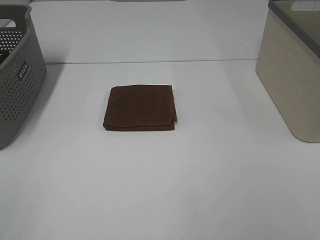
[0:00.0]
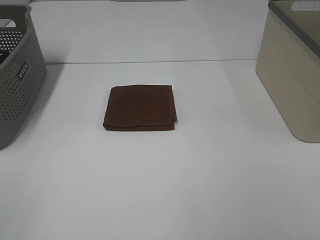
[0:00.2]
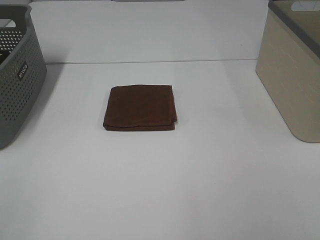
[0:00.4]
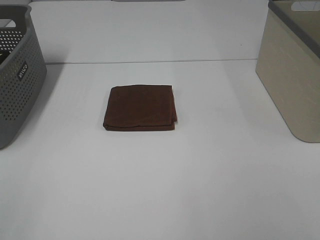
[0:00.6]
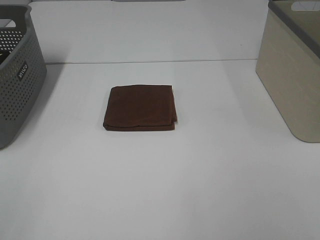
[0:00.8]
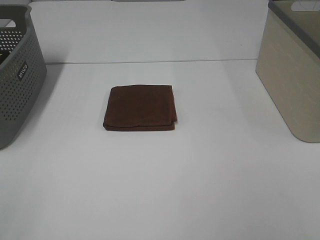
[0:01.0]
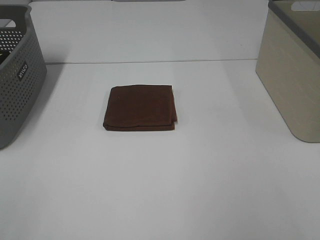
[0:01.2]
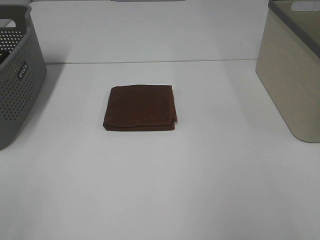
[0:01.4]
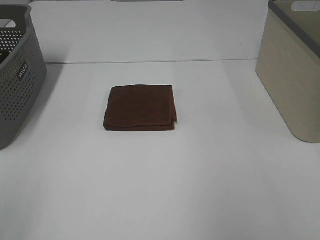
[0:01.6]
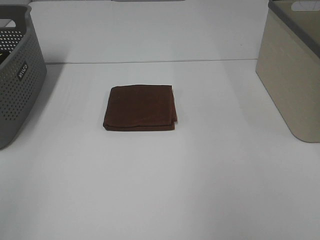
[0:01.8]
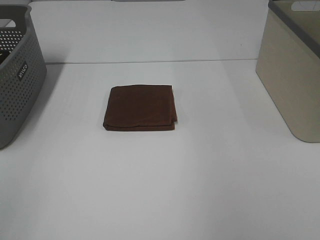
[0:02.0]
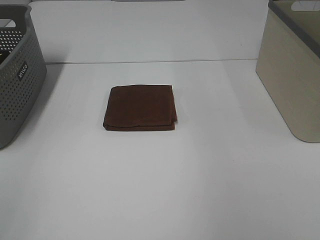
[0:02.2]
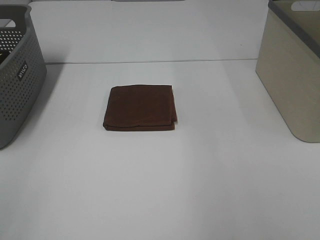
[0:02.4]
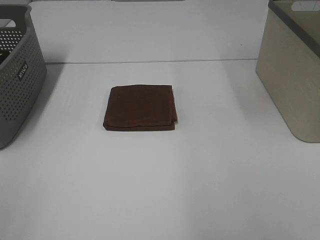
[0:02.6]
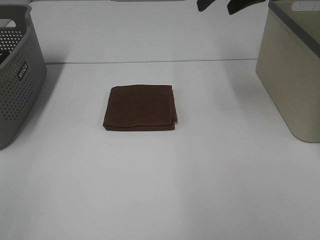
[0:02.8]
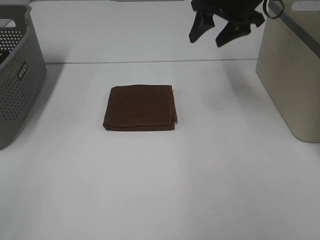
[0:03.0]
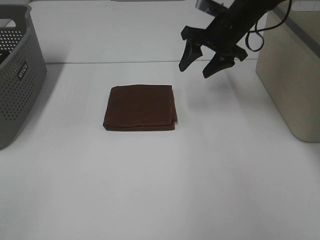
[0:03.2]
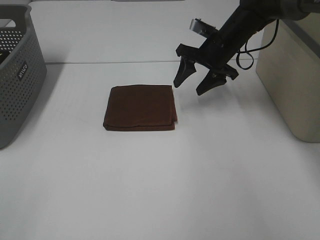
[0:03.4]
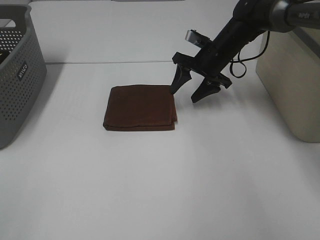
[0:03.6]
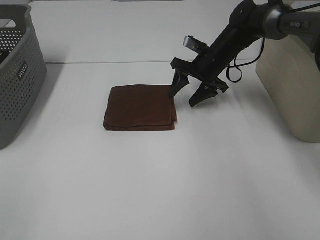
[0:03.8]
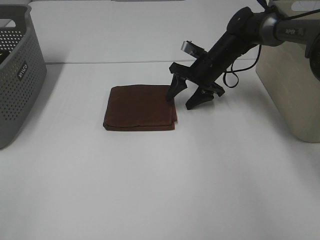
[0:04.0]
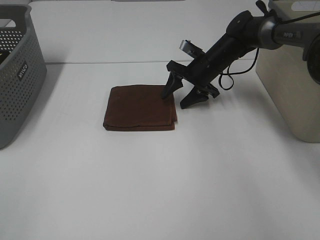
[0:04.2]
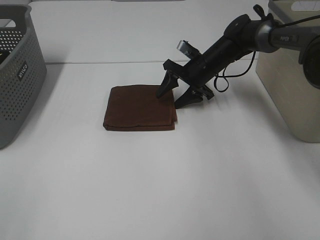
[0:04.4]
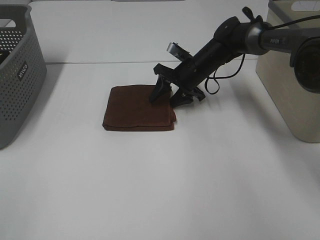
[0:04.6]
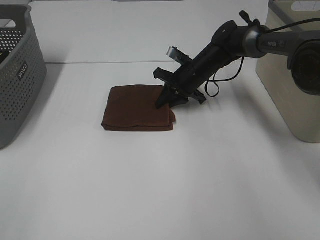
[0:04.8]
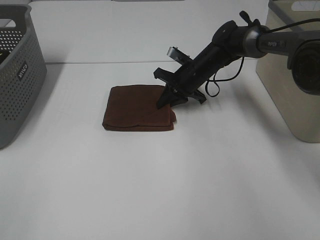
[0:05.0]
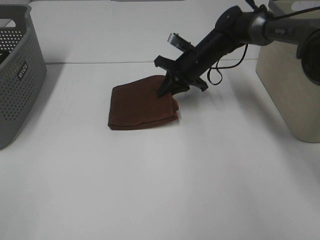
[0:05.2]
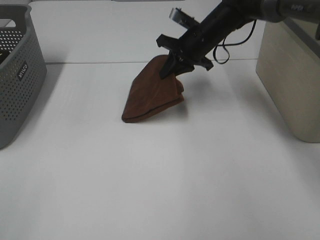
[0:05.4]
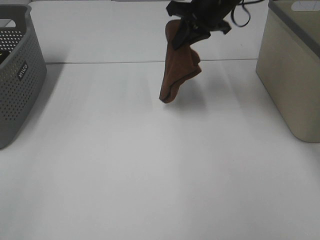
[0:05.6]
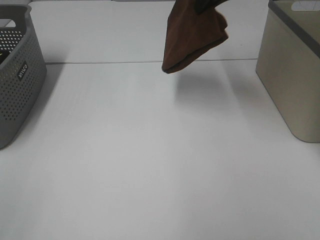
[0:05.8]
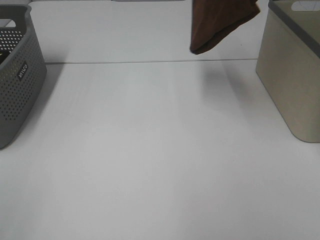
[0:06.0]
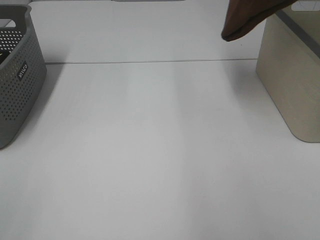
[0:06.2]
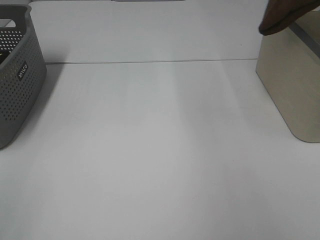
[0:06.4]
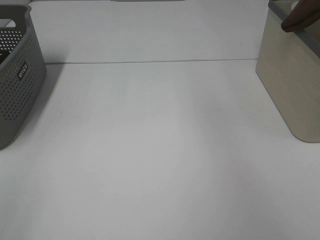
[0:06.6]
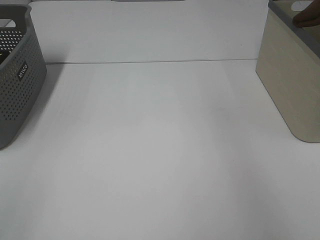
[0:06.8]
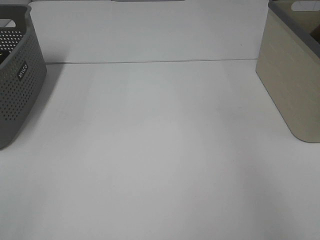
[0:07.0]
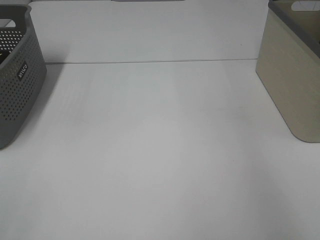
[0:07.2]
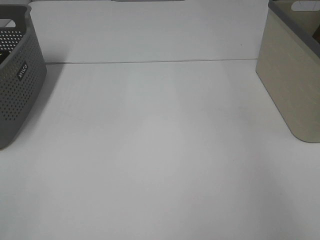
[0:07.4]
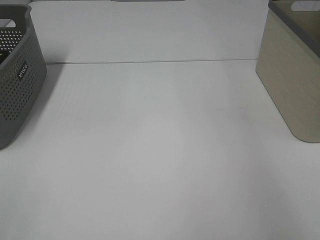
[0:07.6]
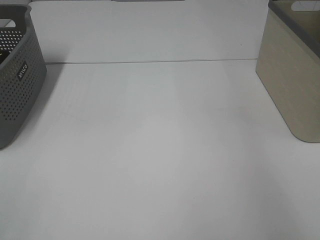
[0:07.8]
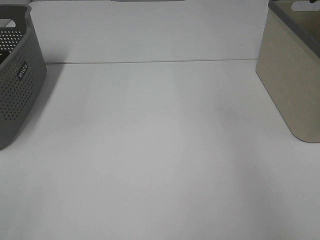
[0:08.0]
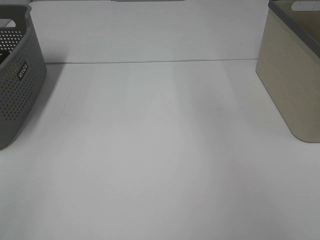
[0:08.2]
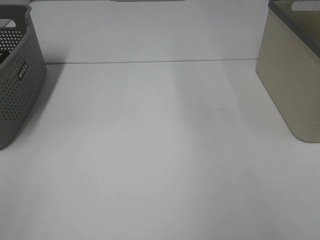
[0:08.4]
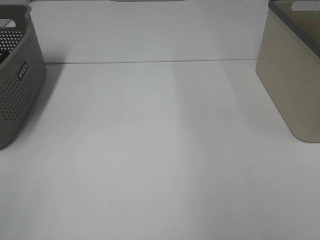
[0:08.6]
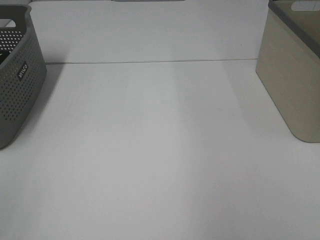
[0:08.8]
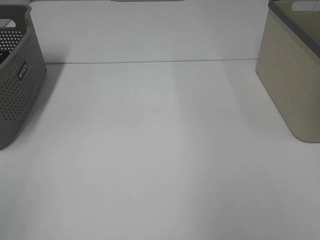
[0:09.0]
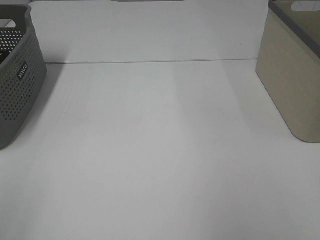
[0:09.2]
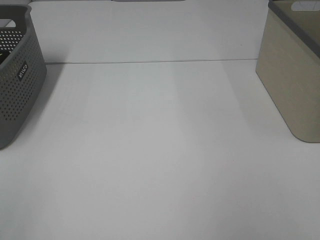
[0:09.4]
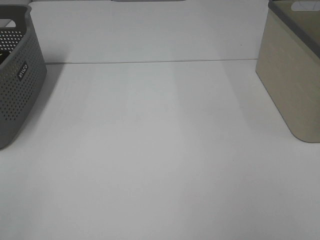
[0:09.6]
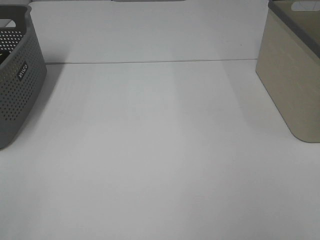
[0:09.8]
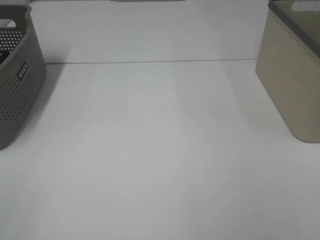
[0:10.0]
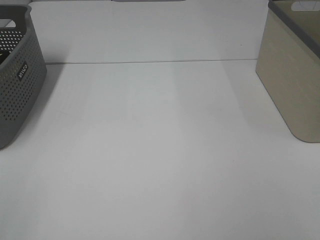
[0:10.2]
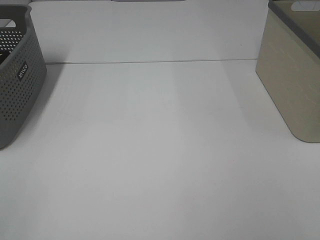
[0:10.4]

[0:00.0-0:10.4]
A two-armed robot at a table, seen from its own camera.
Step, 0.0 to 5.0 s: Right hand: grab the folded brown towel.
Step, 5.2 to 7.6 s: Right hand: place the brown towel in right basket.
1.4 to 3.0 s: The right gripper is displaced forward and to the left by roughly 35 cm.
3.0 to 4.4 s: The right gripper moves downward, approximately 20 cm.
4.4 to 6.0 s: The right gripper heads upward, covering roughly 30 cm, and closes its fingers.
6.0 to 7.4 s: The right gripper shifts approximately 20 cm to the right, and opens its fingers.

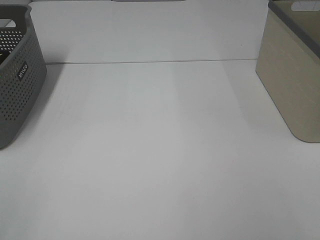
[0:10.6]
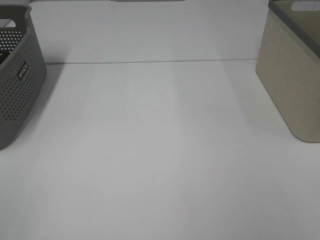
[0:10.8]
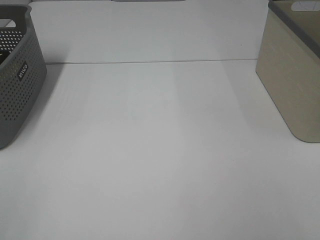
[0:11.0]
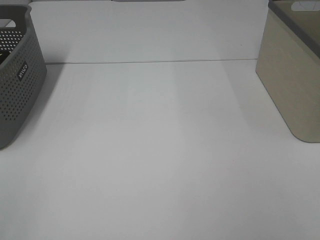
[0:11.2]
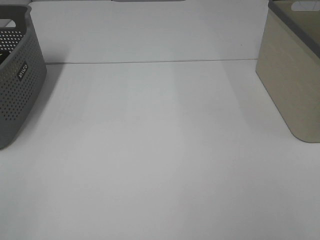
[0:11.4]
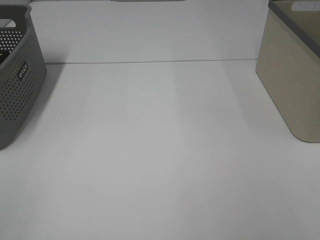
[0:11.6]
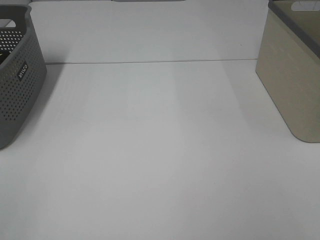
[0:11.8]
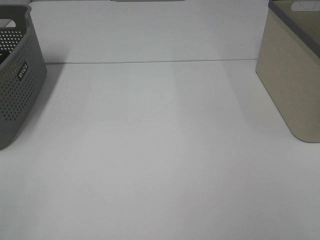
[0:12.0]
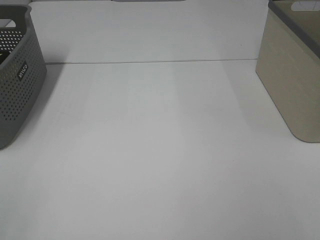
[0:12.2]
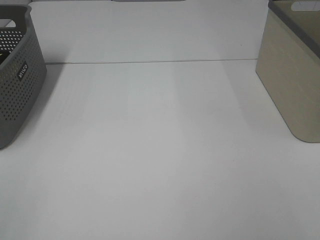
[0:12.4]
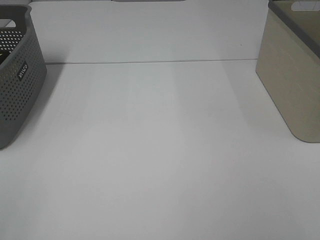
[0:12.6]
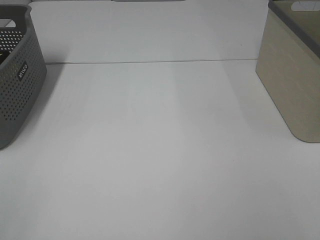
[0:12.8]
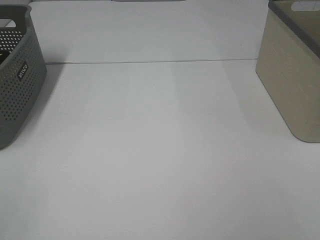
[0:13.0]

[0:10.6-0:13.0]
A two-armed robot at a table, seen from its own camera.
10.6 to 13.0 s: Both grippers stay put.

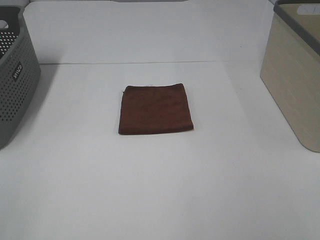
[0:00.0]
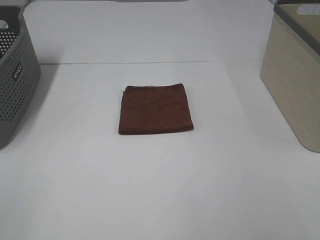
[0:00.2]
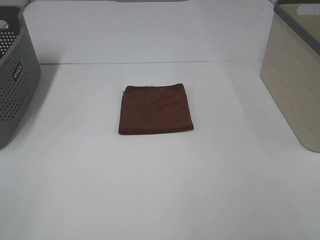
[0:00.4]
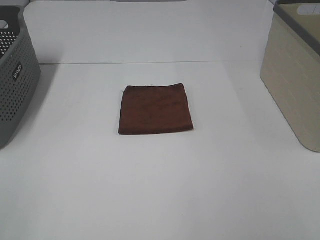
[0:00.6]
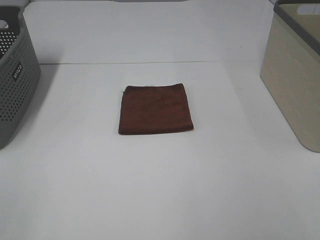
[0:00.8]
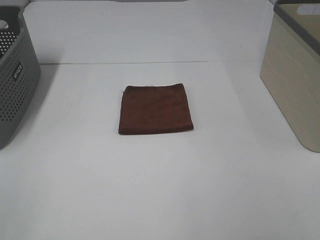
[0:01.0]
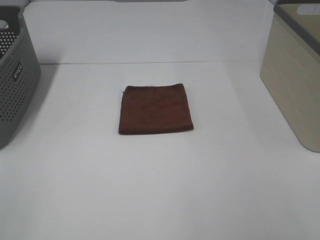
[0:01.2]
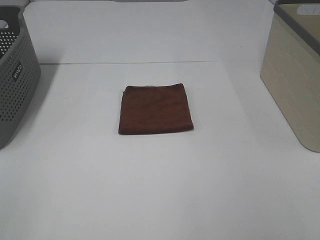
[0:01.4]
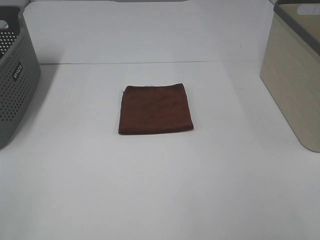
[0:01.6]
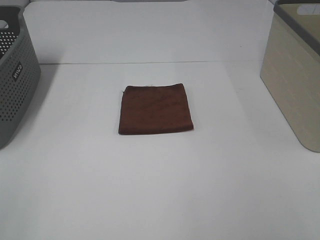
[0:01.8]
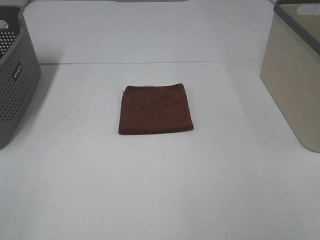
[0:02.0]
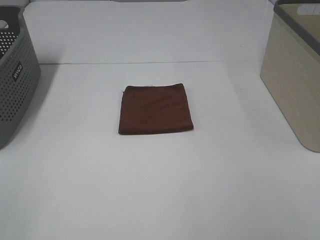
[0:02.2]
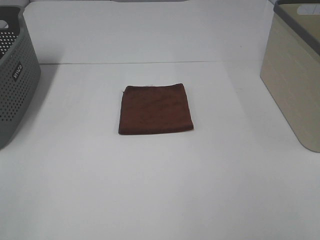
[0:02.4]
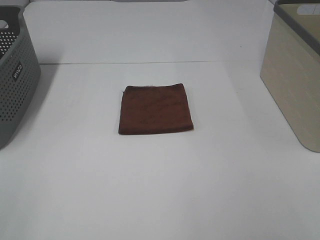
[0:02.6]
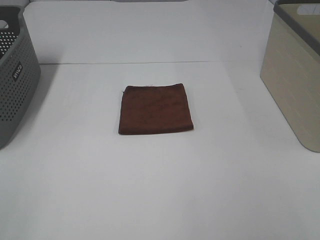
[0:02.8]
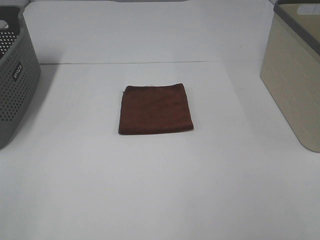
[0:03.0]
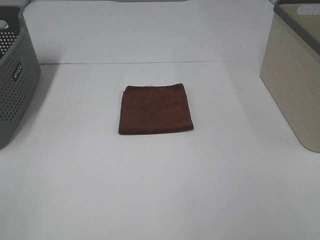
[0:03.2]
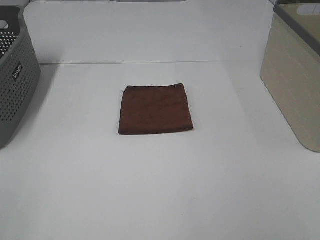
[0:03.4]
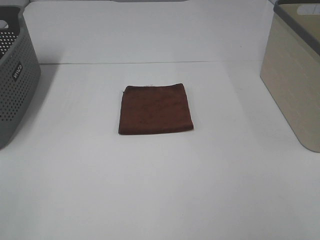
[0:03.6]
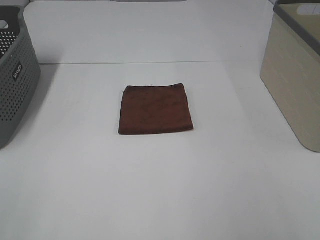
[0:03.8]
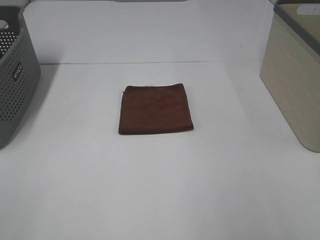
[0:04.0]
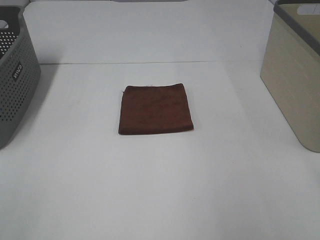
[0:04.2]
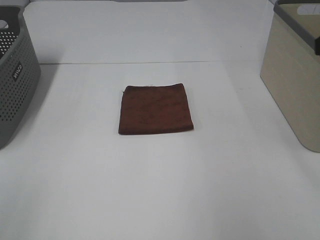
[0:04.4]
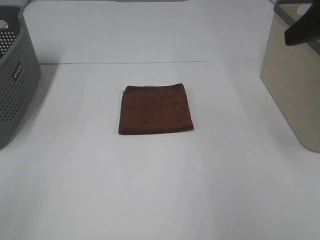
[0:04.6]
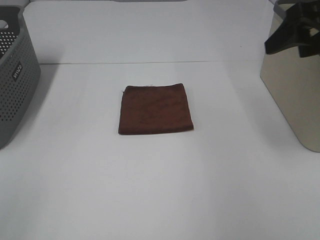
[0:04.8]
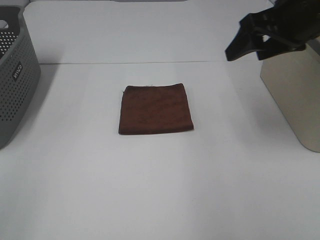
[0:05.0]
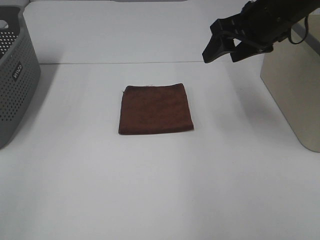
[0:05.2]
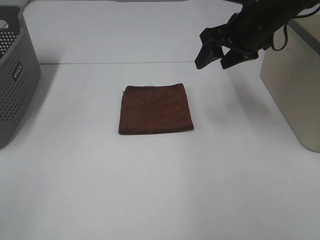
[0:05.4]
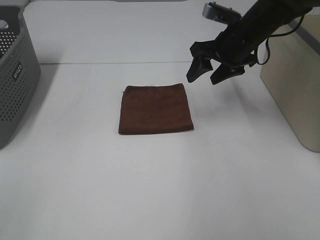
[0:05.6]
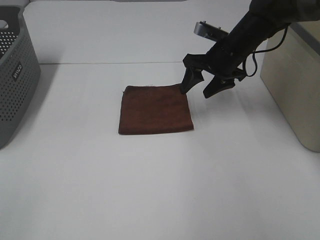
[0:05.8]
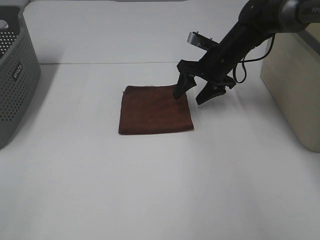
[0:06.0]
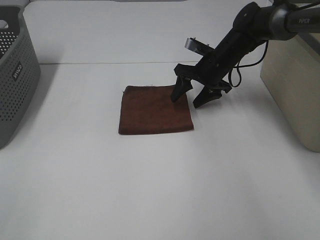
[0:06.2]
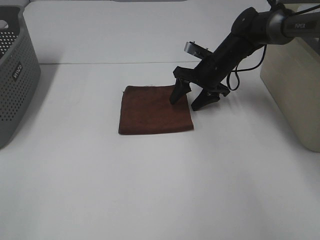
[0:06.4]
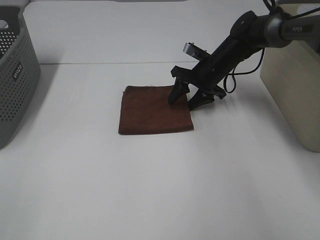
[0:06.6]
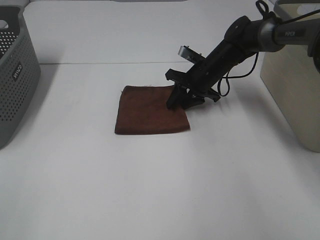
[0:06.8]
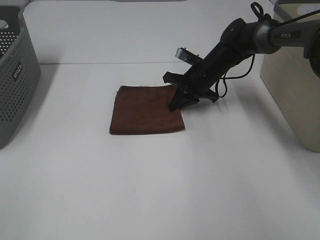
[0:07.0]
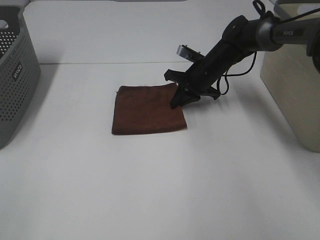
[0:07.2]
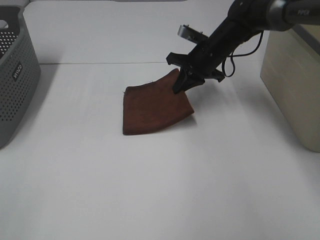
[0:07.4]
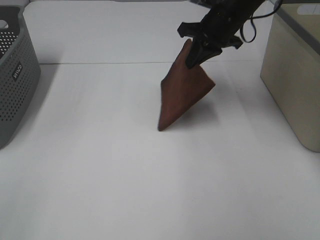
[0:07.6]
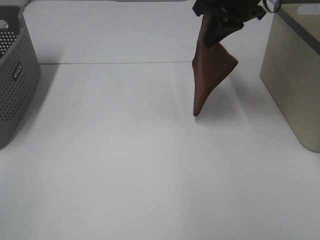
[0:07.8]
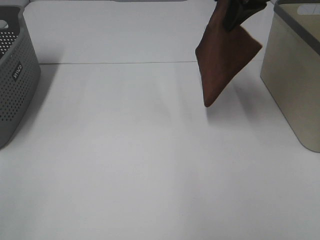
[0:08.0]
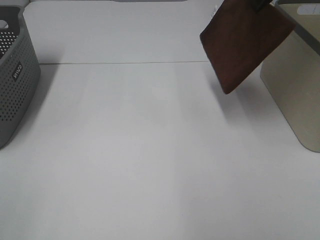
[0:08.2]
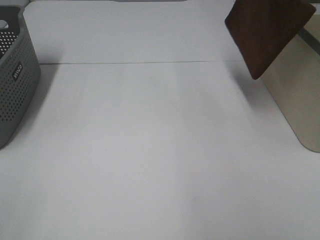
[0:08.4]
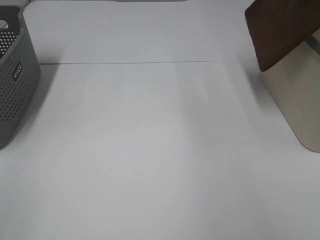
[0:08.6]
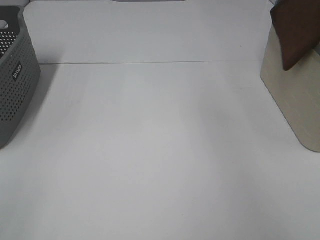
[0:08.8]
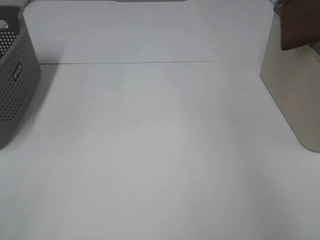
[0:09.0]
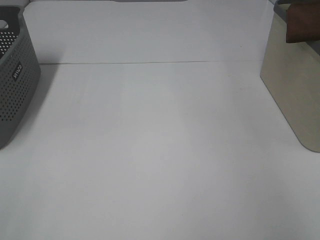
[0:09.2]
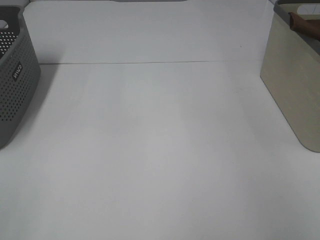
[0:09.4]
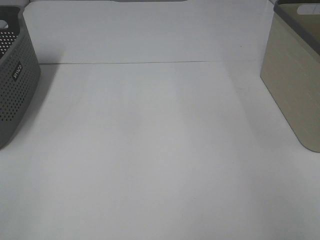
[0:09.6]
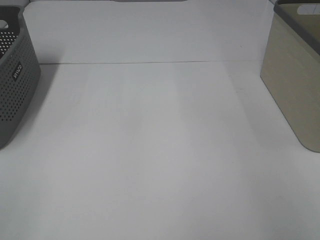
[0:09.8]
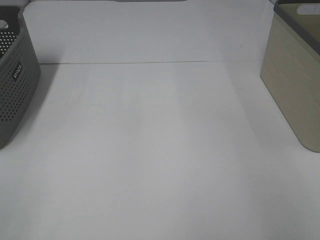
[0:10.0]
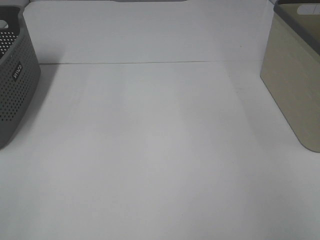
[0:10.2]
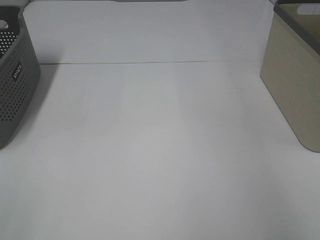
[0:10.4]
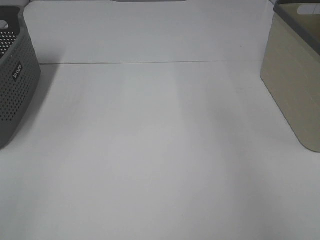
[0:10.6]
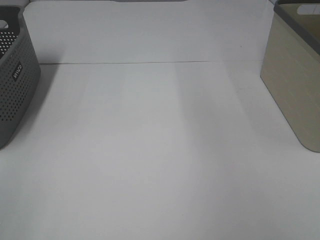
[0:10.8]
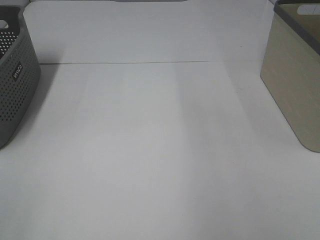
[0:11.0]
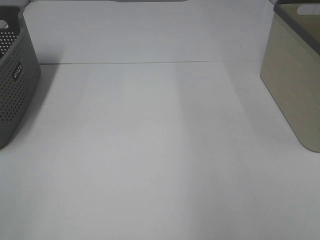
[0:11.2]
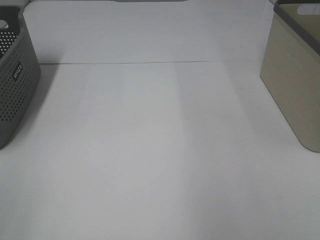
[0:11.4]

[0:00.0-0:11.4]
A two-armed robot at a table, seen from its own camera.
Step, 0.0 to 7.0 s: Right hand: grab the folded brown towel.
Step, 7.2 to 10.0 s: Right hand: place the brown towel in right basket.
0.0 to 2.8 s: The two grippers keep their place.
4.2 to 5.6 s: The right gripper is displaced forward, downward and to the left by about 35 cm.
5.6 to 7.2 s: The right gripper heads downward, covering some 10 cm, and closes its fingers.
7.2 to 8.6 s: The right gripper moves upward and to the right, about 35 cm.
8.6 to 10.0 s: The right gripper shifts some 20 cm to the right and downward, and opens.
